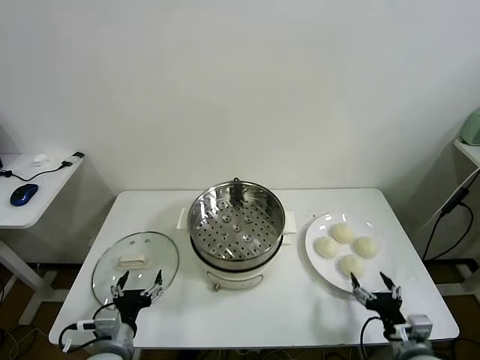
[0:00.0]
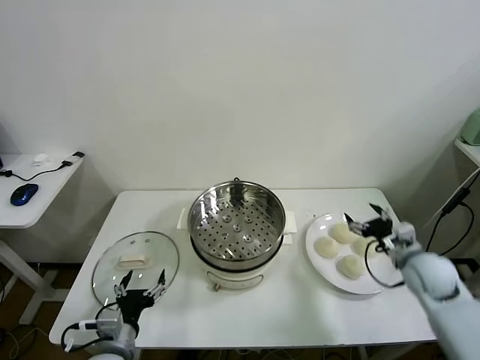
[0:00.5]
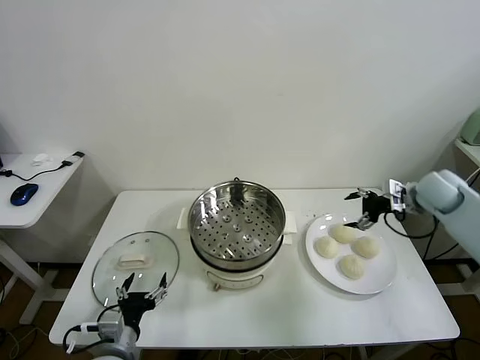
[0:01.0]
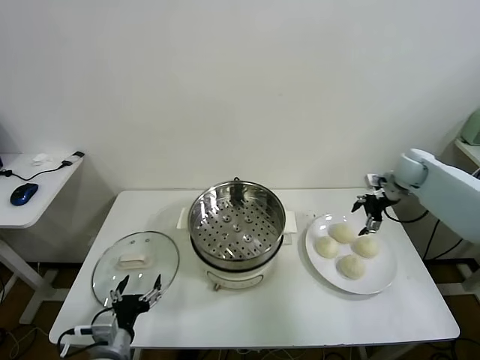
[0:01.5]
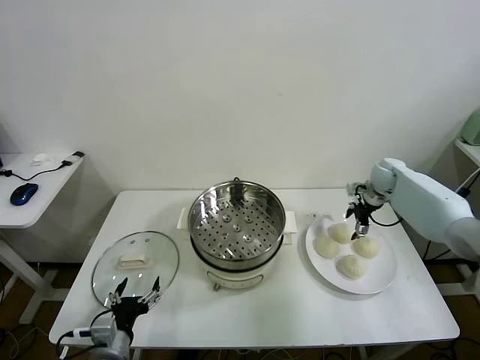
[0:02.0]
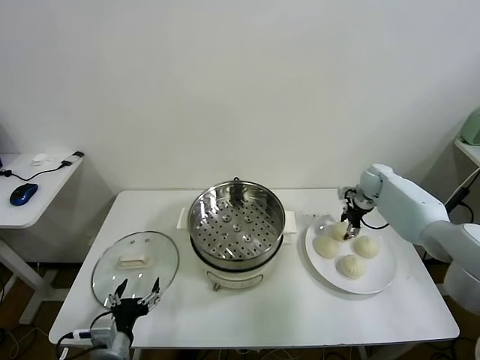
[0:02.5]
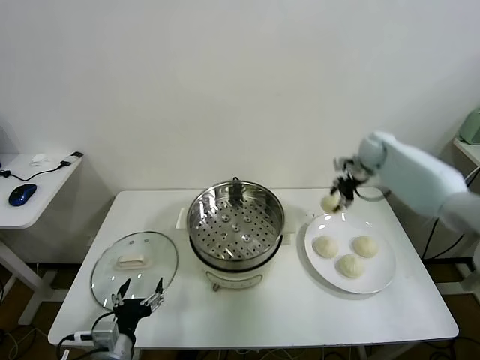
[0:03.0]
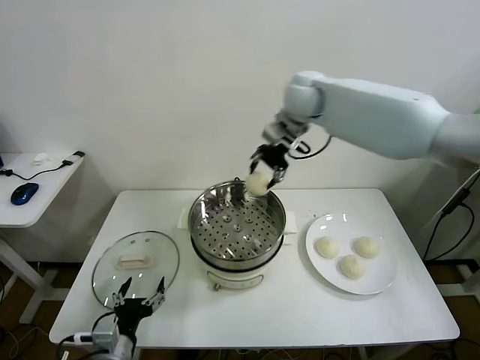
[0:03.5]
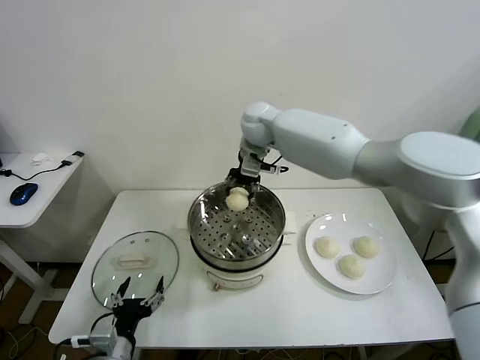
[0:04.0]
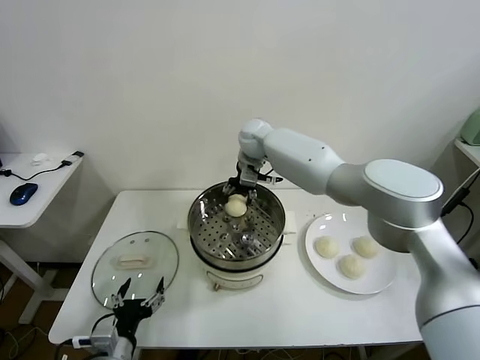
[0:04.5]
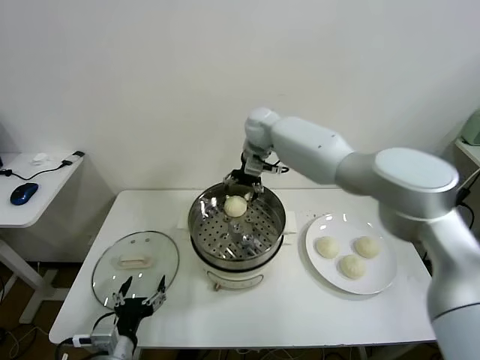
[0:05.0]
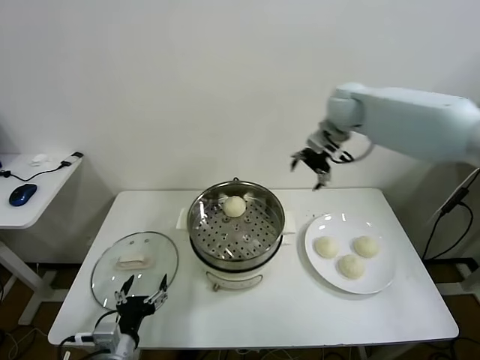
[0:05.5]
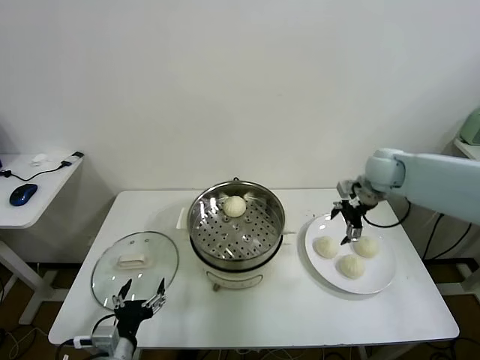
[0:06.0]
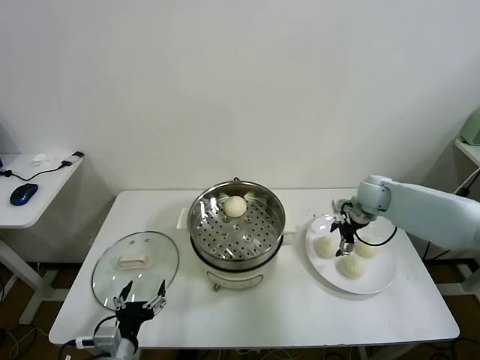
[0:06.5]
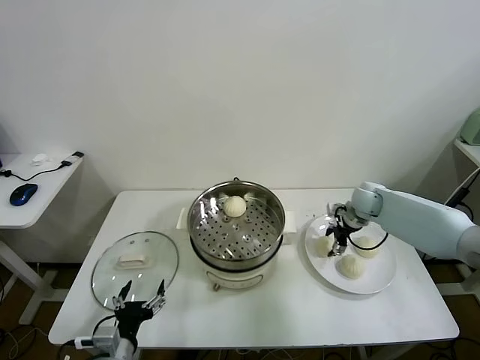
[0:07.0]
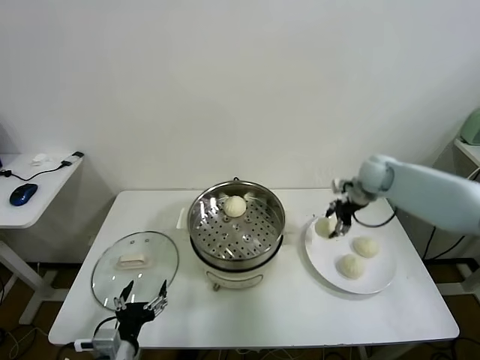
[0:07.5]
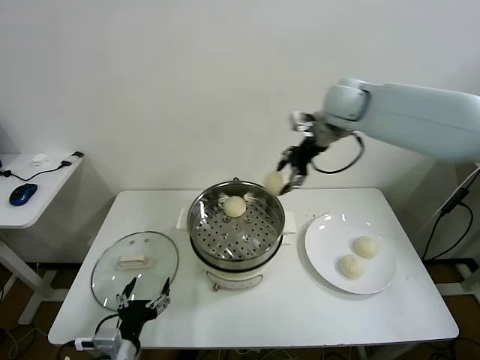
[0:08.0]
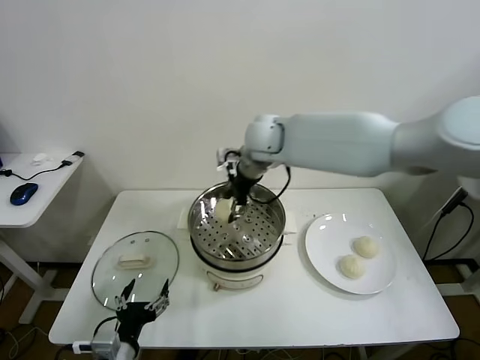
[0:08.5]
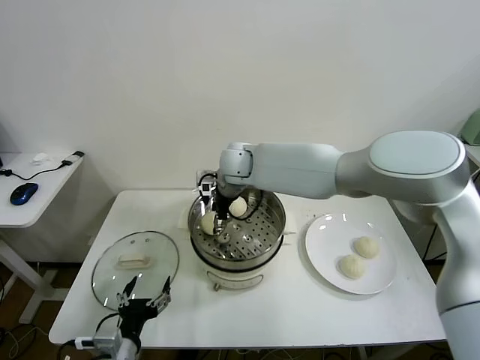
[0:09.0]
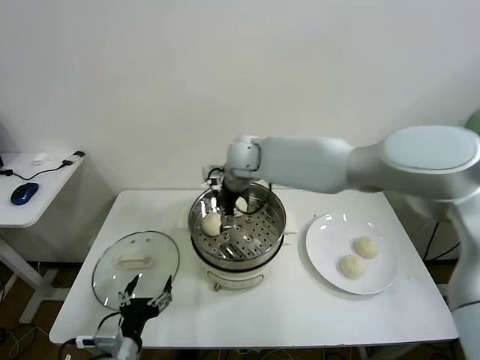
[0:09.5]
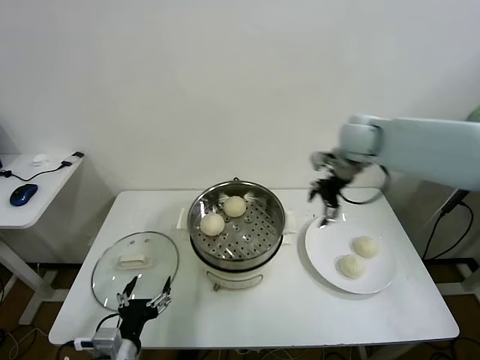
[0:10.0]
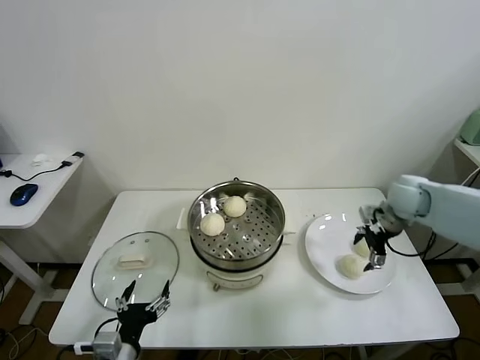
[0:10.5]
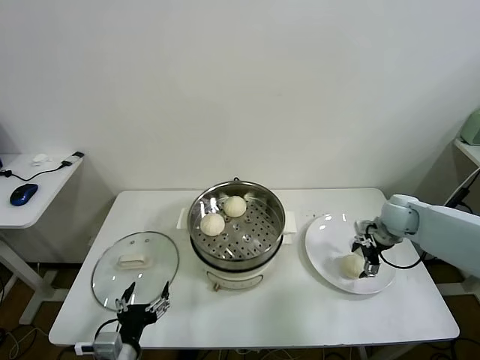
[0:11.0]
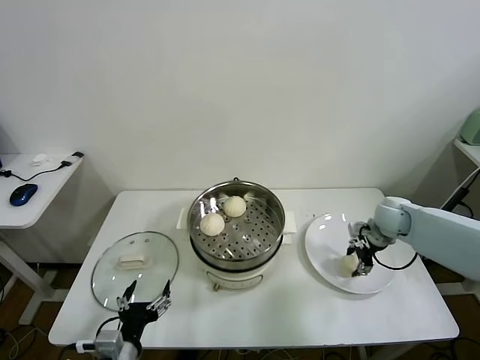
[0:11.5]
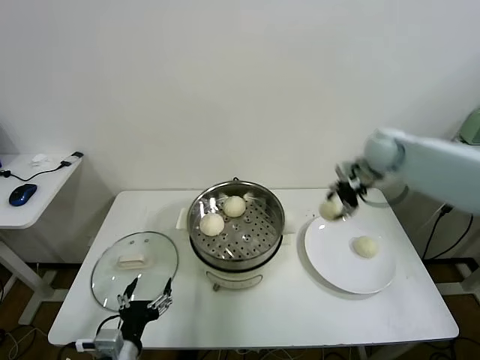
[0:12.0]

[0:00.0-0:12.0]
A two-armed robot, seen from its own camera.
Task of the whole recording: take steamed baozi put them in steamer.
Step, 0:00.0 to 0:02.5: Grasp the baozi in the plate with right gripper.
Step, 0:03.0 to 0:04.5: Place the baozi on the steamer with right gripper.
Step, 0:05.0 to 0:07.0: Grasp the baozi in the plate with right gripper.
Step, 0:07.5 to 0:09.5: Place the baozi on the steamer with right gripper.
Step, 0:10.0 to 0:11.5: Grasp the baozi in the plate with right gripper.
0:02.0 to 0:04.0: The right gripper is displaced to the left and upward by some 40 cm, and closes its fingers.
0:04.0 to 0:06.0: The right gripper is displaced to the right by some 30 cm, and opens up.
0:06.0 to 0:08.0: The right gripper travels upward and to the left by roughly 25 cm, and closes its fingers.
0:08.0 to 0:10.0: The right gripper goes about 15 cm to the right and downward, and opens its fingers.
0:10.0 to 0:12.0: The right gripper travels downward and back again, about 20 cm each way, and closes.

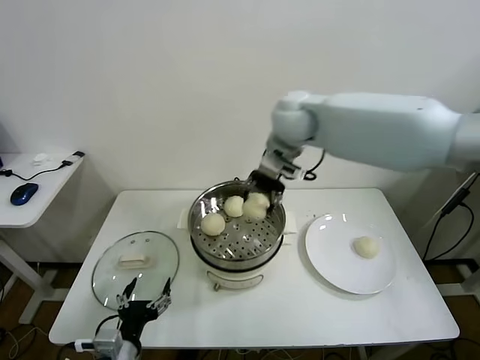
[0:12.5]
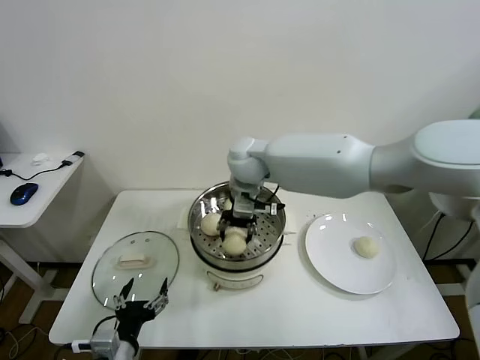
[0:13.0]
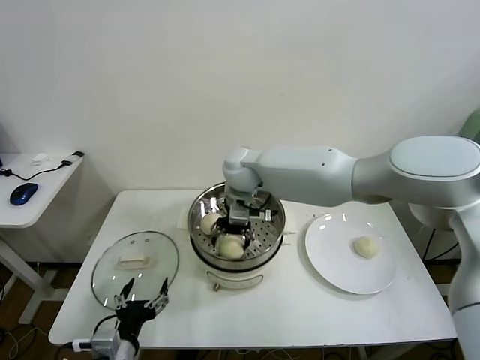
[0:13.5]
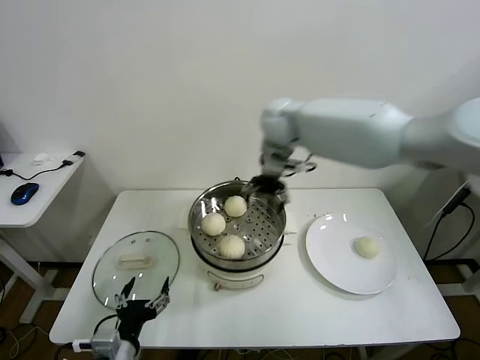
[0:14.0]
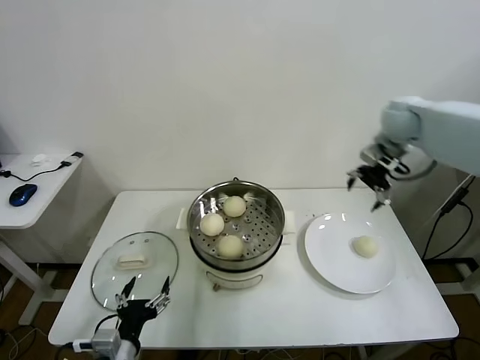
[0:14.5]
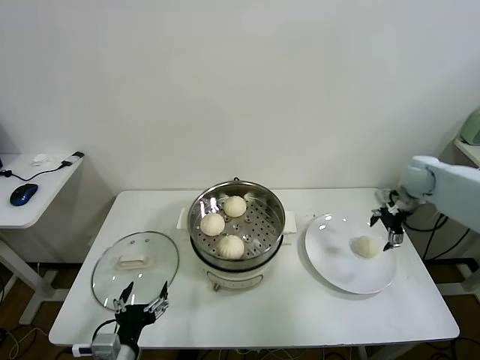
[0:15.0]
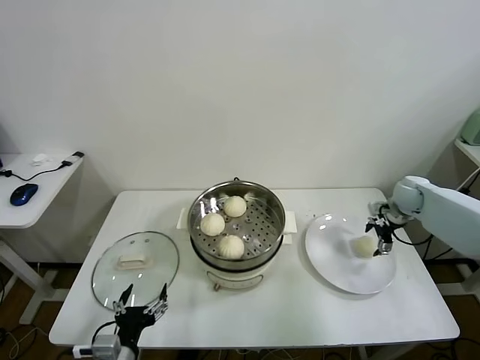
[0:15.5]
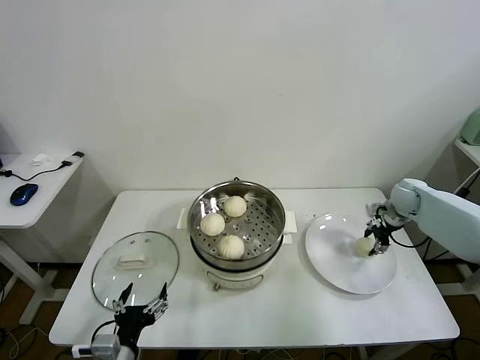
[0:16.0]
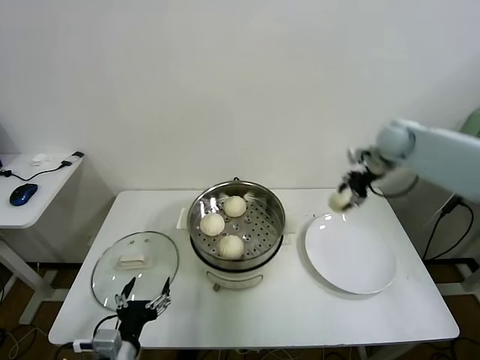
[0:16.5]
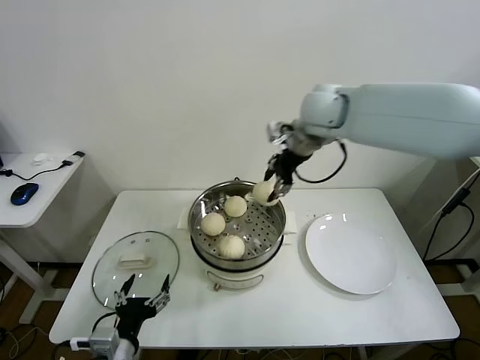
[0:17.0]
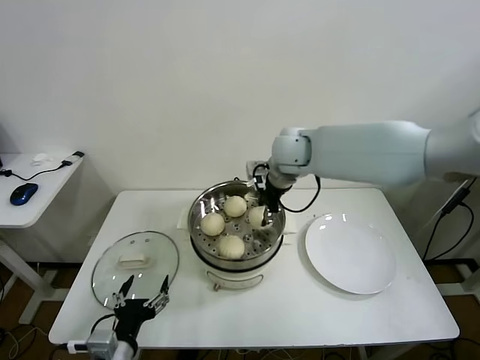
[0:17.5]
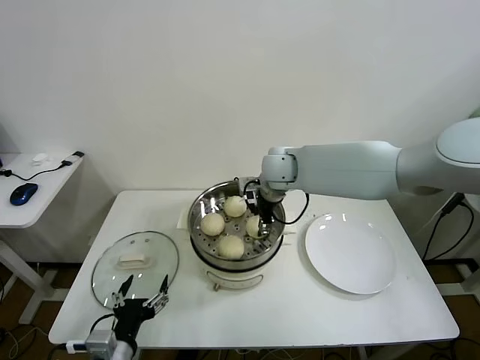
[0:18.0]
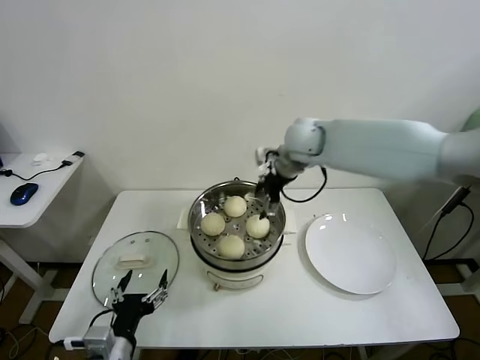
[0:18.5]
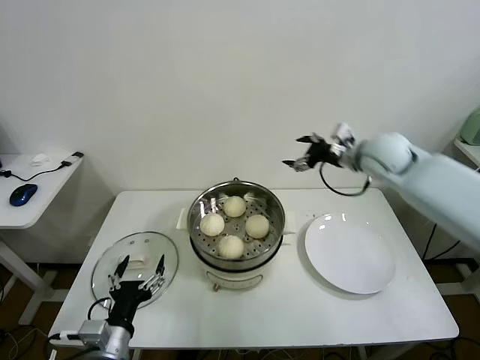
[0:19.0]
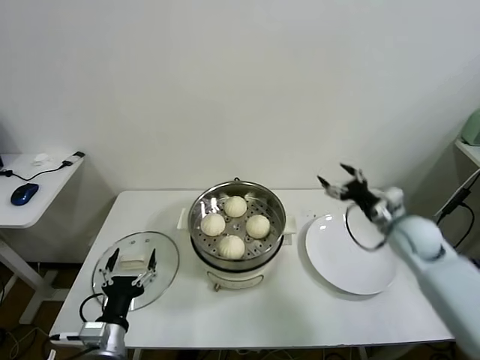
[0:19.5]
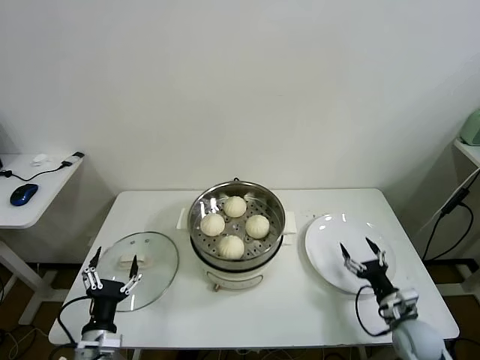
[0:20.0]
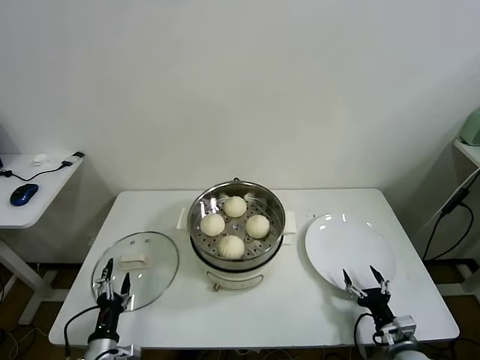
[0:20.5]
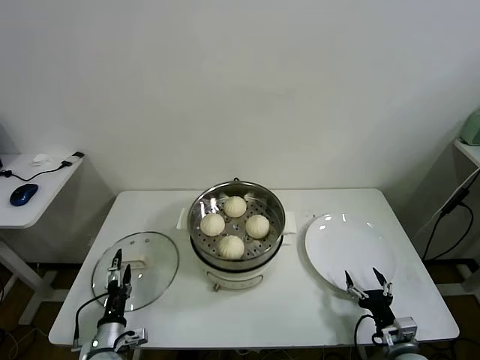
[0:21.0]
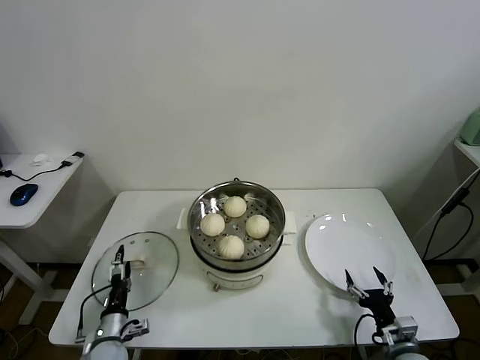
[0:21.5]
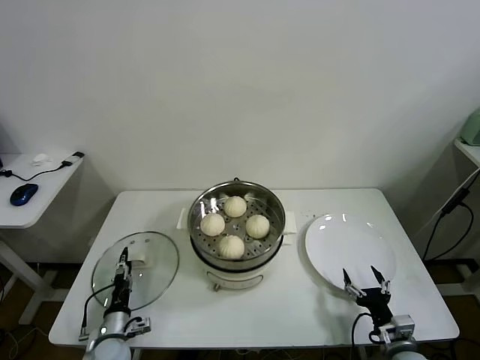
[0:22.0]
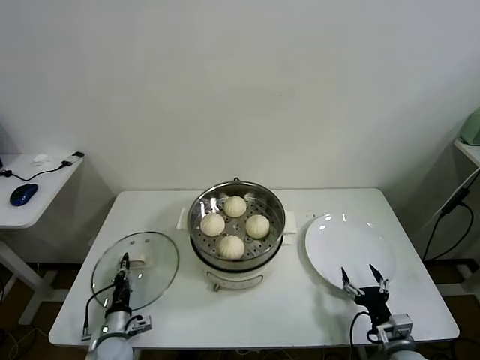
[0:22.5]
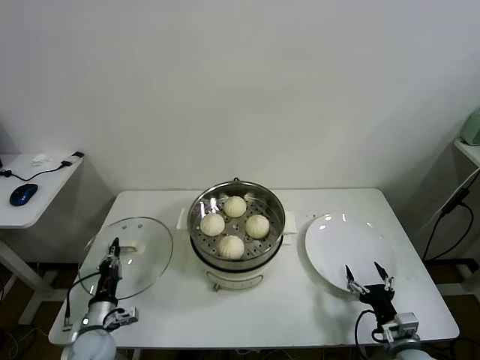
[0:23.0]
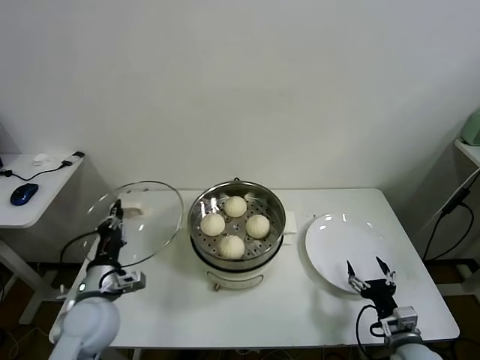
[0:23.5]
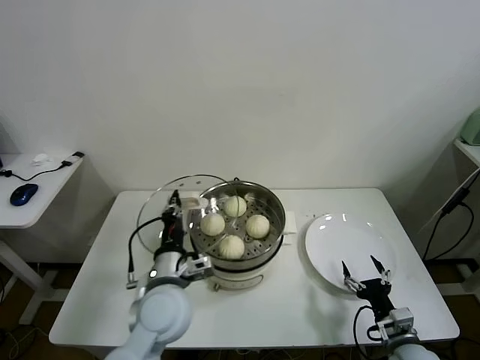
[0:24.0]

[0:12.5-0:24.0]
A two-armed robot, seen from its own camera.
Task of the whole recording: take steamed baozi put them in steamer.
Step, 0:12.5 to 0:13.5: Place the baozi on the steamer with right gripper.
Step, 0:14.0 to 0:16.0: Grasp the baozi in the plate with right gripper.
Step, 0:16.5 to 0:18.0: Place the baozi on the steamer with right gripper.
Step, 0:18.5 to 0:22.5: Grasp the pot lid with left gripper.
0:12.5 to 0:14.5: The right gripper moves to the right, approximately 30 cm, and opens.
0:14.5 to 0:16.5: The right gripper goes downward and returns, approximately 20 cm each way, and closes up.
0:16.5 to 0:18.5: The right gripper travels to the left by about 20 cm, and opens.
0:18.5 to 0:20.0: The right gripper is displaced downward, backward and to the right by some 50 cm. The left gripper goes approximately 5 cm downward.
0:20.0 to 0:22.0: The left gripper heads downward and forward, covering about 15 cm; the right gripper moves backward, some 5 cm.
0:22.0 to 0:24.0: The left gripper travels upward and to the right by approximately 30 cm, and closes its fingers.

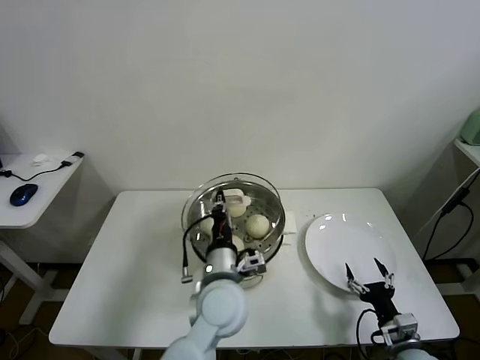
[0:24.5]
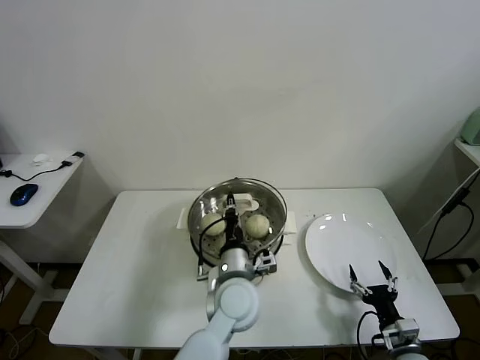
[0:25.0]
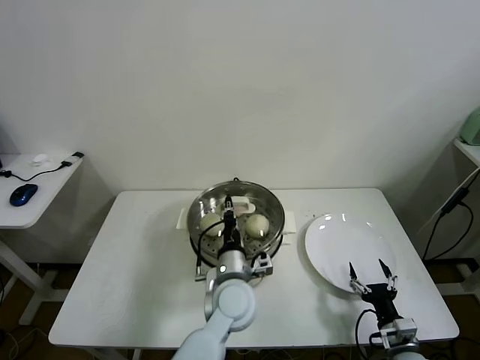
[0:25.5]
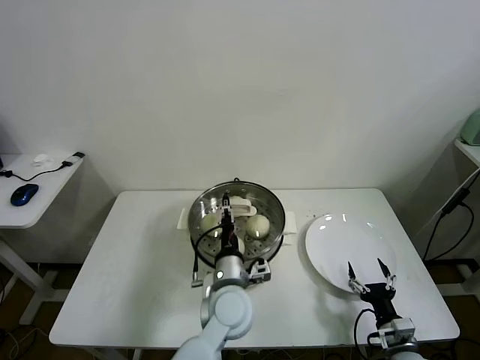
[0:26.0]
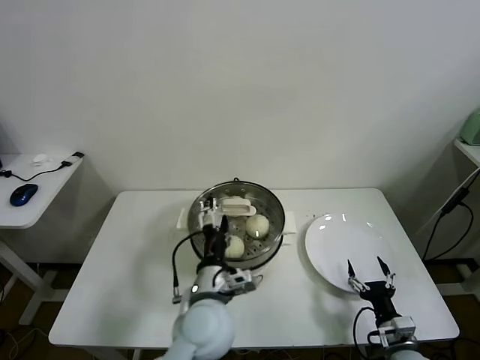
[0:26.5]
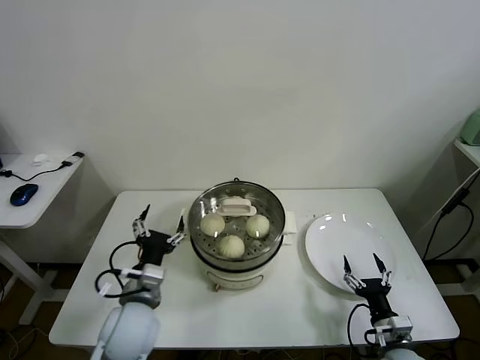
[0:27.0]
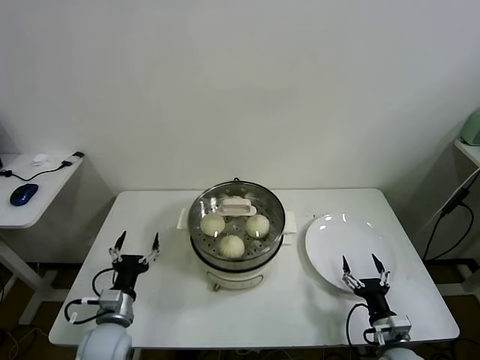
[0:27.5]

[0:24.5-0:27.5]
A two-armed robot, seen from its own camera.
Task of the whole recording: take steamed baozi put them in steamer.
0:24.5 to 0:26.0: The left gripper heads downward, covering some 5 cm, and opens up.
0:26.0 to 0:27.5: The left gripper heads to the left, covering approximately 25 cm, and opens its fingers.
